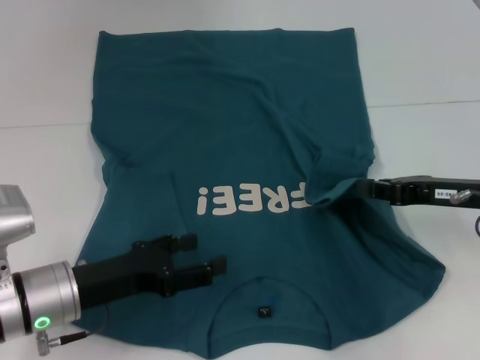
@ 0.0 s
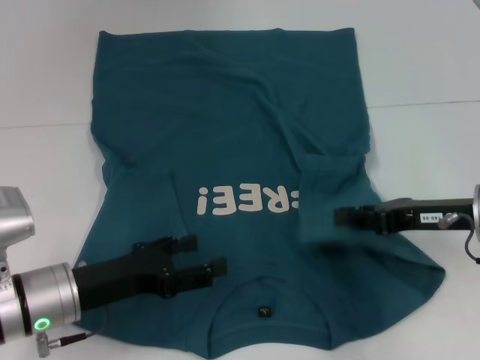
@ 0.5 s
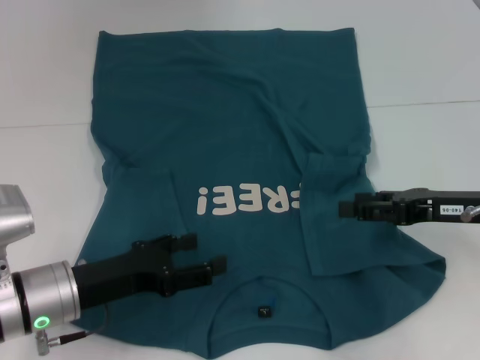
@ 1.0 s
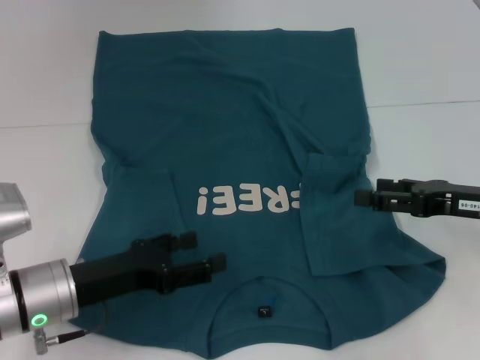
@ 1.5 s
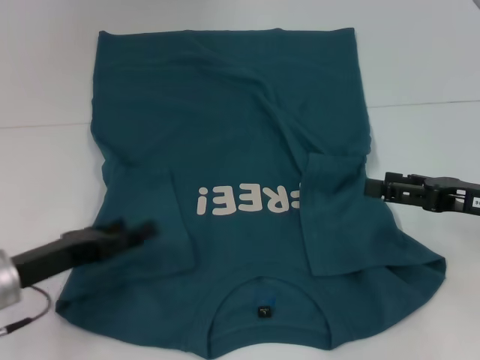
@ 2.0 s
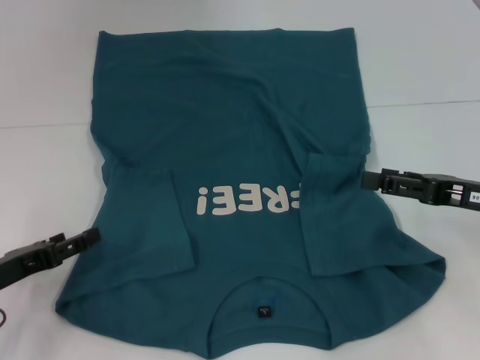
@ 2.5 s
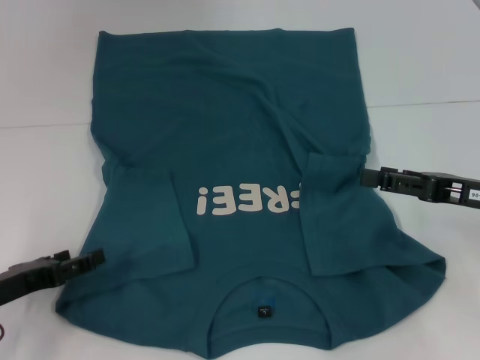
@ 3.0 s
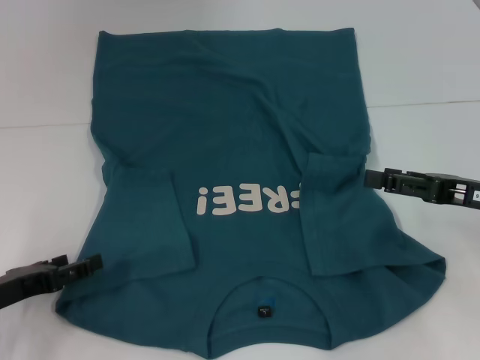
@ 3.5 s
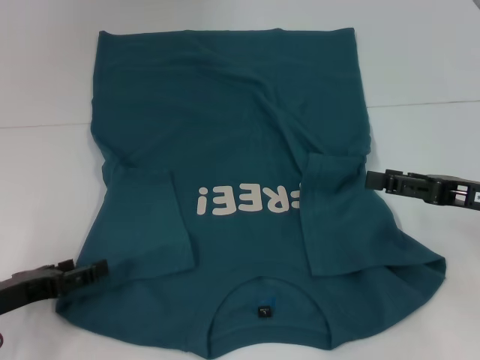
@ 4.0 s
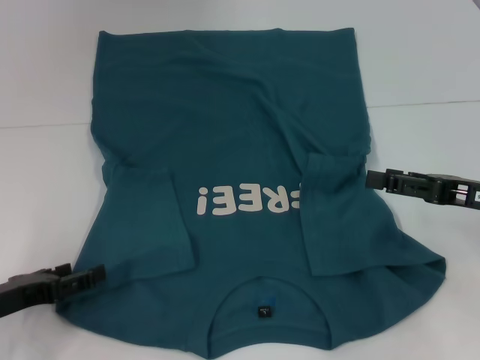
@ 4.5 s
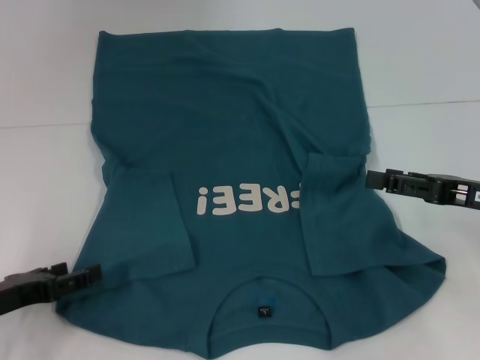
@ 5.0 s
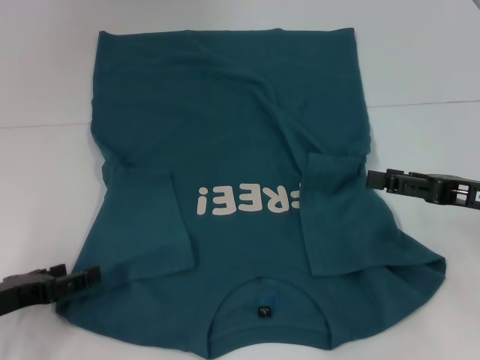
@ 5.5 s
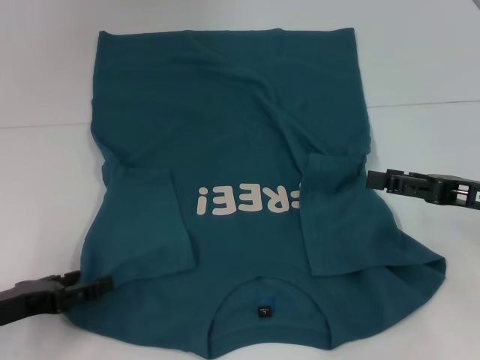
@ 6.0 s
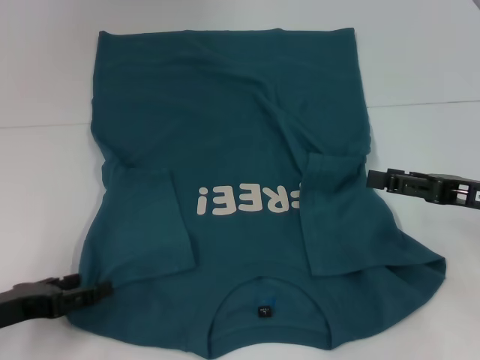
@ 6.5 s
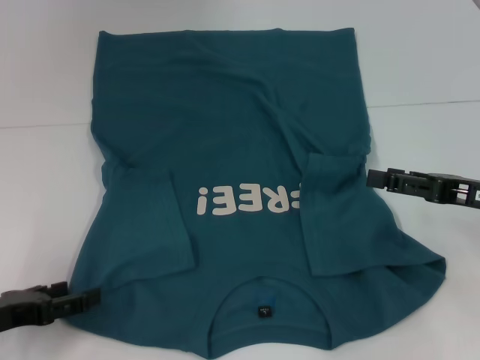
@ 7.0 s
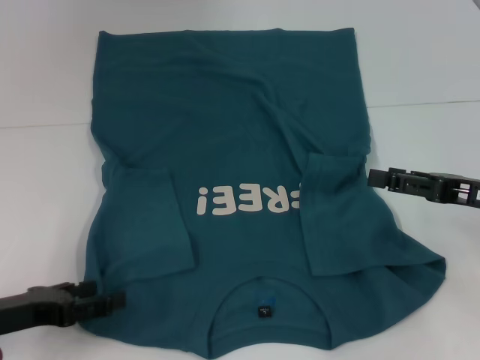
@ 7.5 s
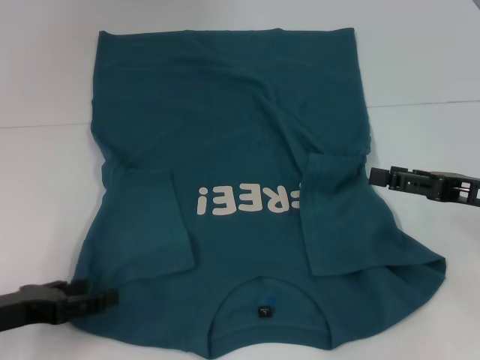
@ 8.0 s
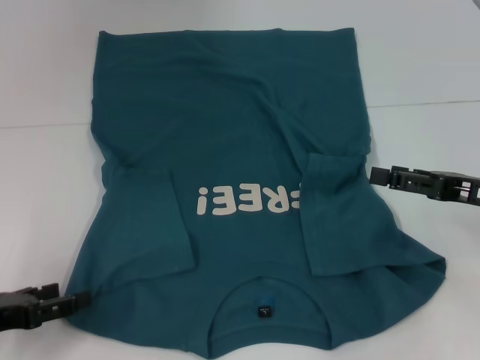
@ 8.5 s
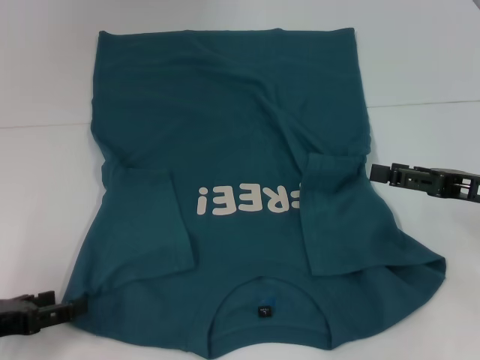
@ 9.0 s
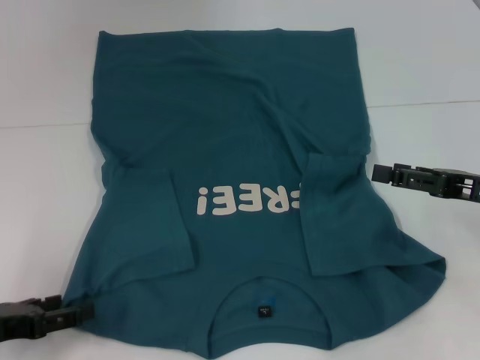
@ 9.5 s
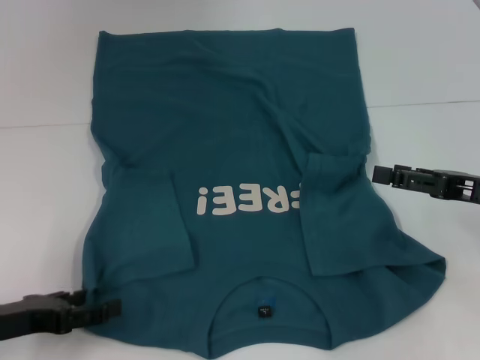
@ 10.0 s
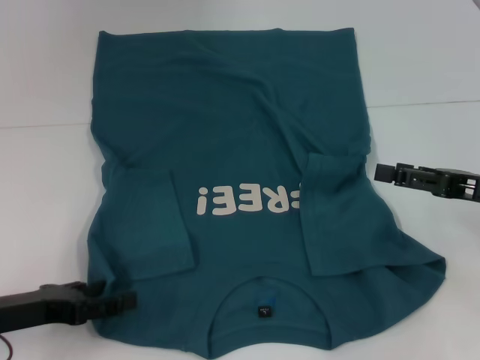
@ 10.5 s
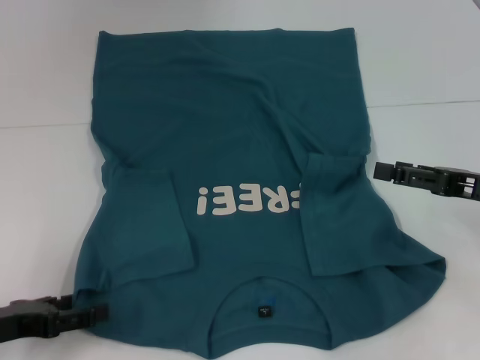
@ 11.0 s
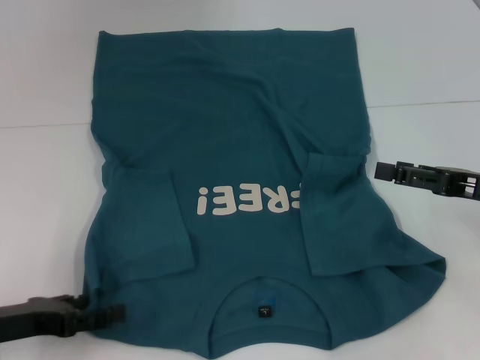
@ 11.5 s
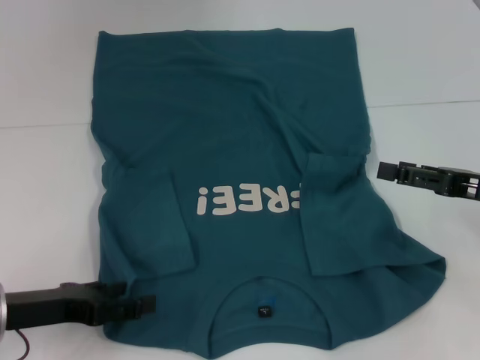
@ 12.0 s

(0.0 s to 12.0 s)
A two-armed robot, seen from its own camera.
0.0 s - 2.0 s: The right gripper opens up. The left gripper goes roughly 5 cm to the left.
2.0 s - 4.0 s: The left gripper ends up about 5 cm from where it was.
4.0 s - 12.0 s: The grippers make only small movements.

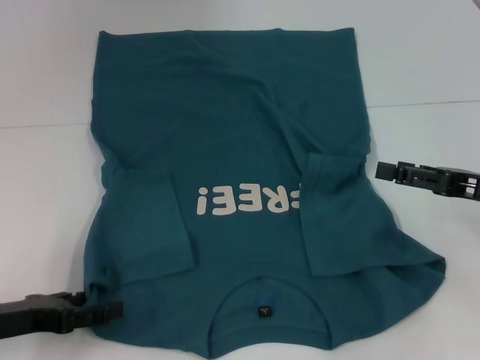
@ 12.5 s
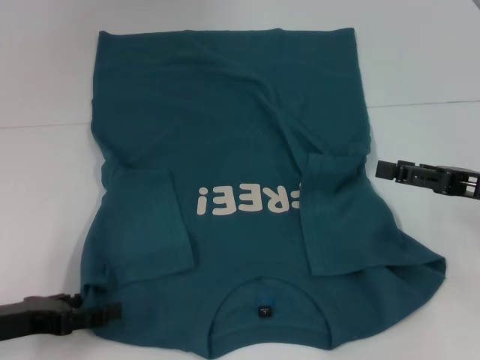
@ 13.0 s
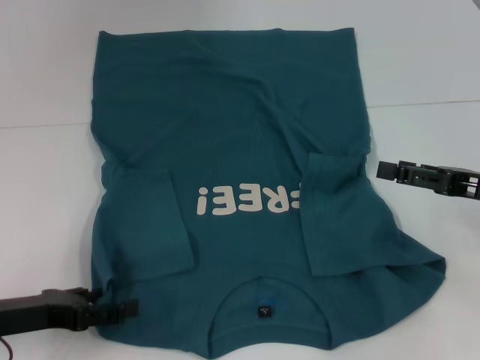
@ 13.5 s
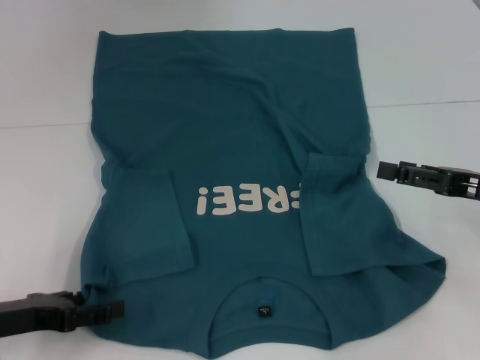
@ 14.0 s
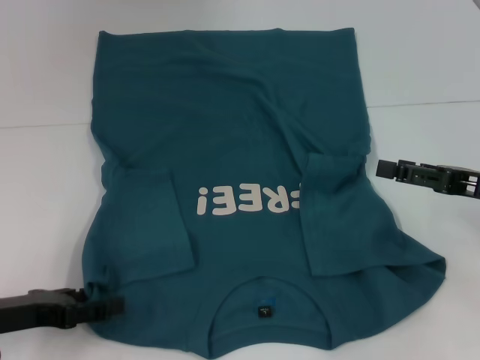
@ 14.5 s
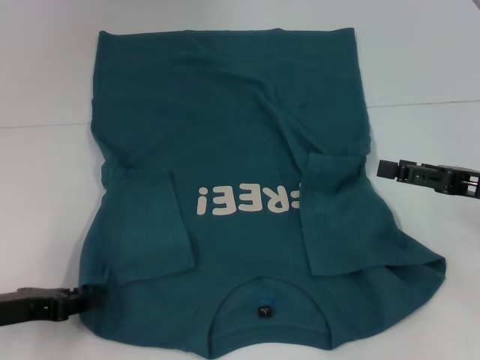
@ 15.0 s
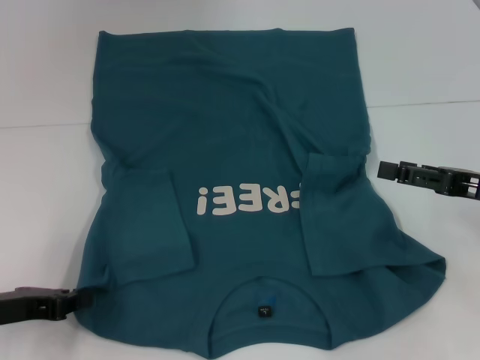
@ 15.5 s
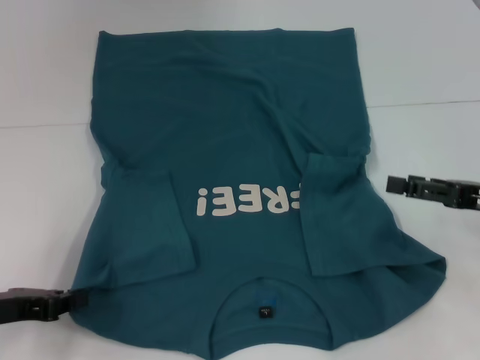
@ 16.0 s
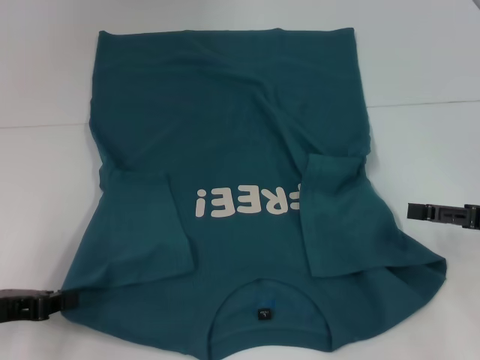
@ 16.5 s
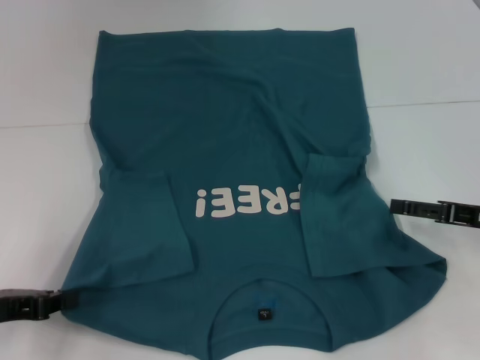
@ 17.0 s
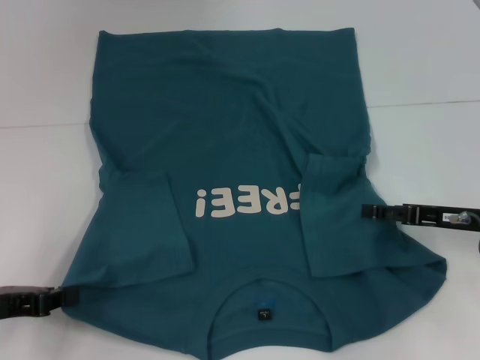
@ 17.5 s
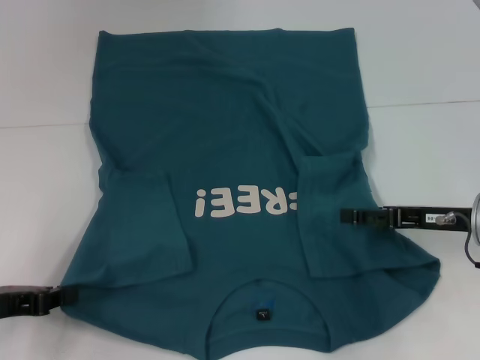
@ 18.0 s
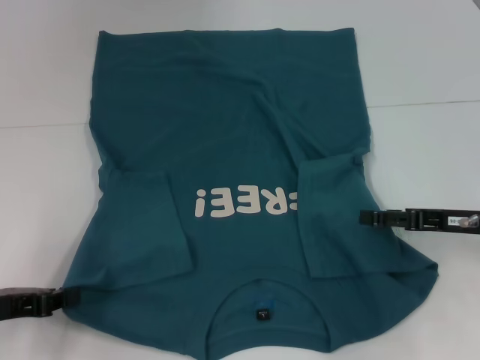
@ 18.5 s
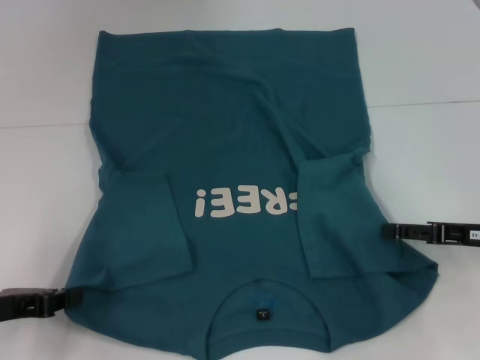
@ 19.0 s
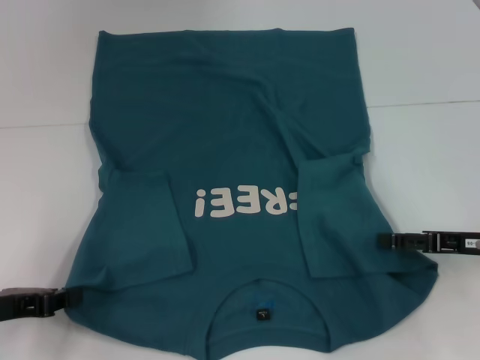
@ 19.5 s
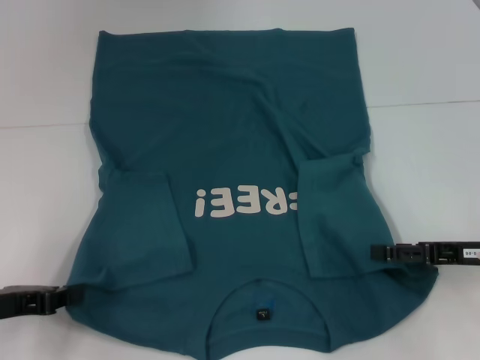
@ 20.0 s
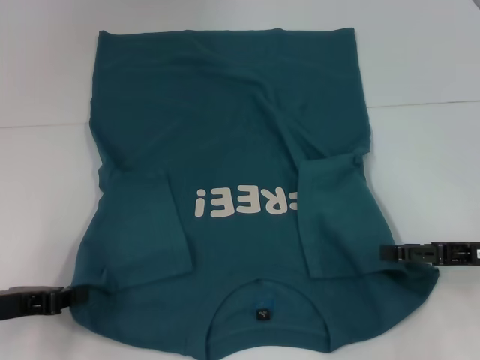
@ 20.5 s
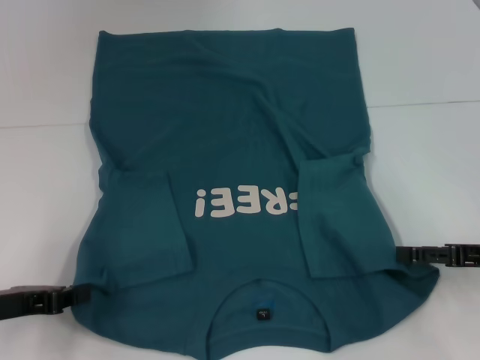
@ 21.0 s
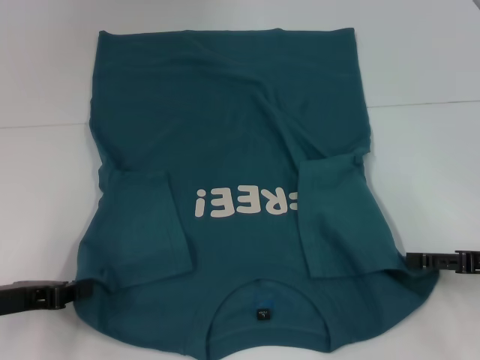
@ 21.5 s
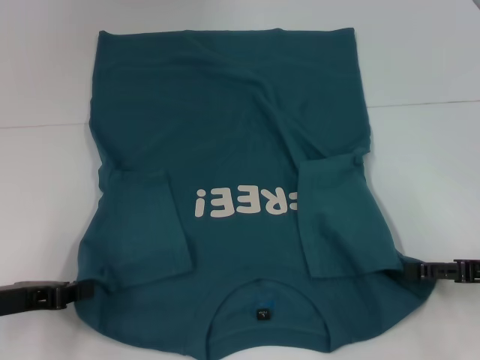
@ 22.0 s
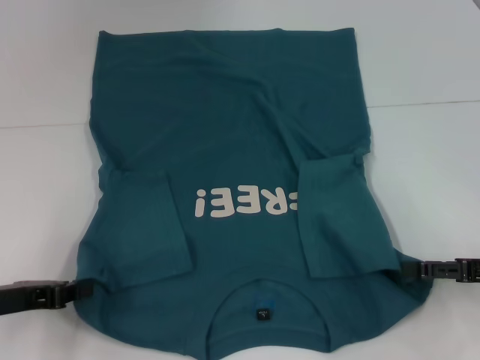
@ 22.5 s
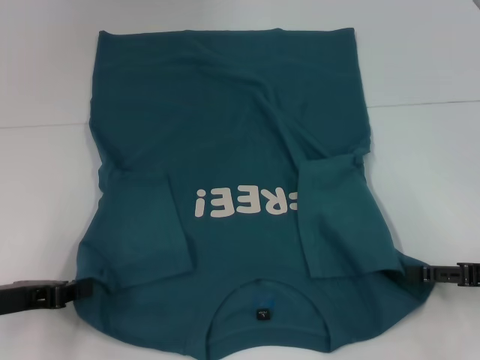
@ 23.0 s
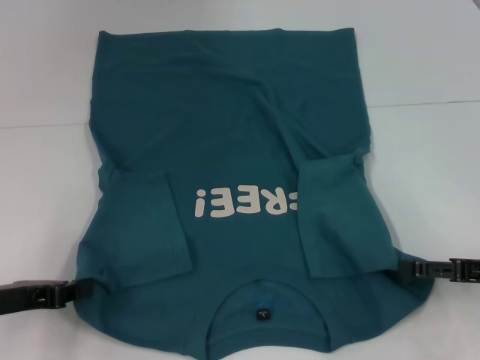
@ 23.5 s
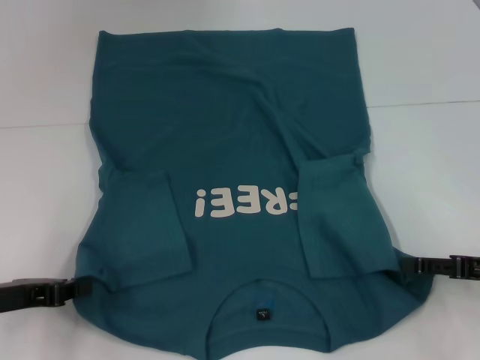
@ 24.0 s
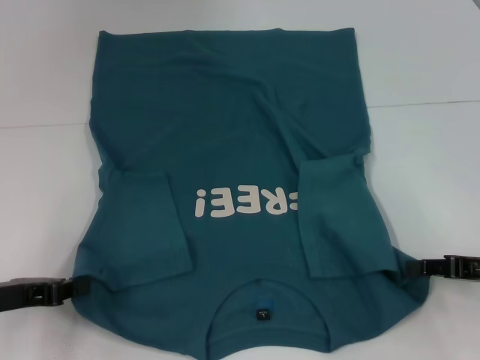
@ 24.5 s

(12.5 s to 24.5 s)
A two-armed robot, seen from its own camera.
Step, 12.5 s - 15.5 s: Grab the bottom left corner with your left hand.
12.5 s - 14.5 s: Both grippers stay put.
14.5 s - 16.5 s: The left gripper closes its fingers.
16.5 s - 18.5 s: The right gripper moves approximately 5 cm.
18.5 s - 20.5 s: The grippers make only small movements.
20.5 s - 22.5 s: The grippers move only a little.

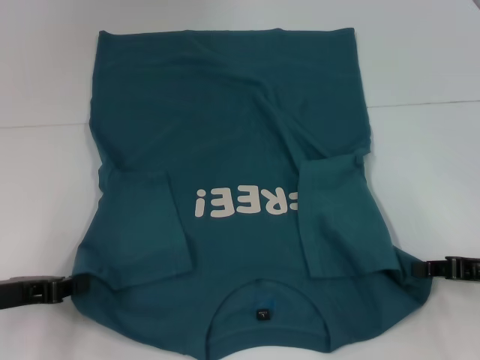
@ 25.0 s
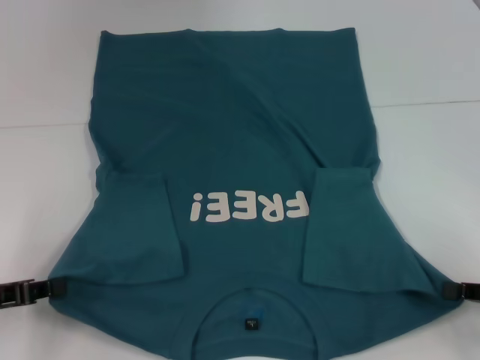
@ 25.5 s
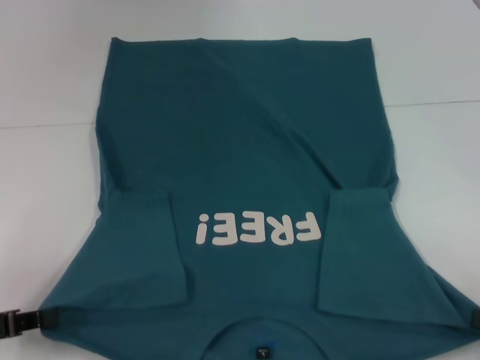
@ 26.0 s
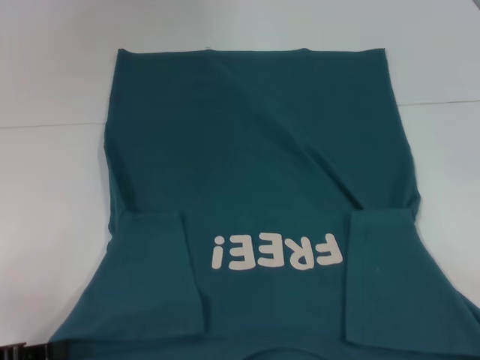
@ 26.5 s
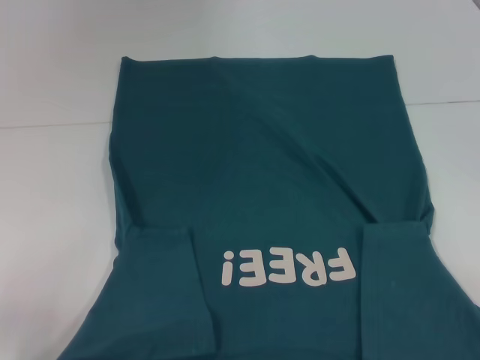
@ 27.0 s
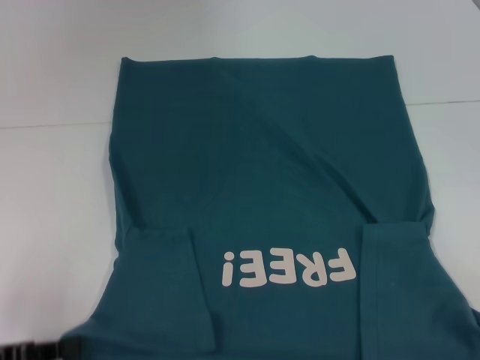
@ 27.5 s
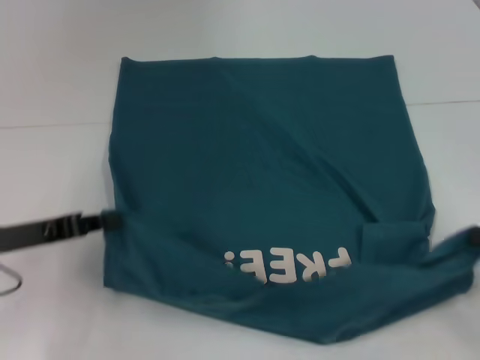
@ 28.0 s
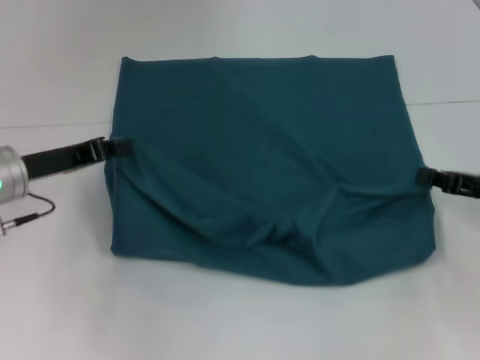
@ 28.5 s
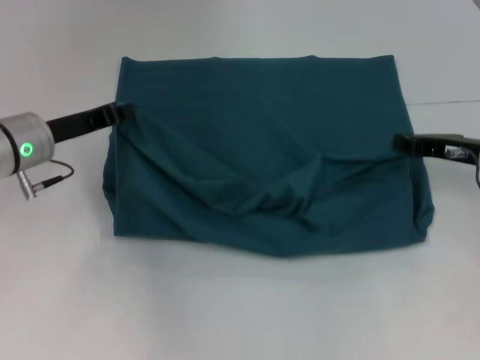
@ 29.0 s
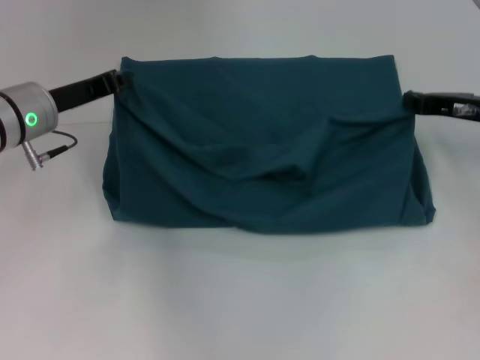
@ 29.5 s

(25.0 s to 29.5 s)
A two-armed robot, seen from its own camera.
25.0 s - 27.0 s: The left gripper shifts roughly 10 cm backward. Meanwhile the right gripper travels backward and to the right by some 20 cm.
27.0 s - 29.5 s: The right gripper shifts about 30 cm forward, while the left gripper heads forward and to the right, covering roughly 25 cm.
